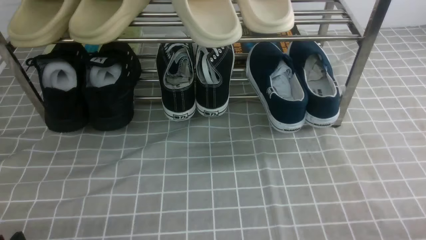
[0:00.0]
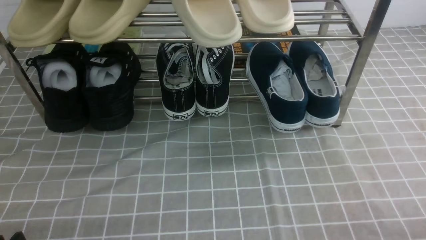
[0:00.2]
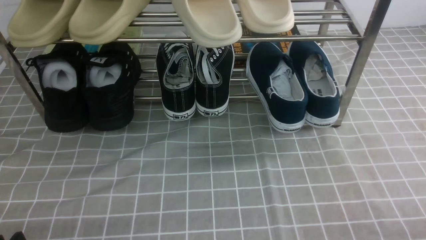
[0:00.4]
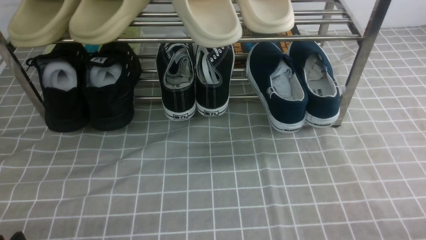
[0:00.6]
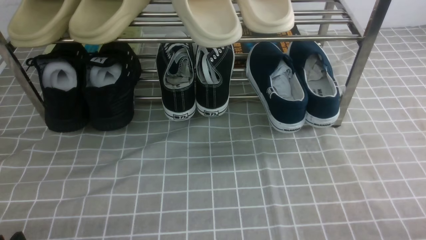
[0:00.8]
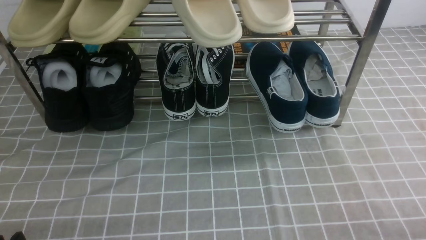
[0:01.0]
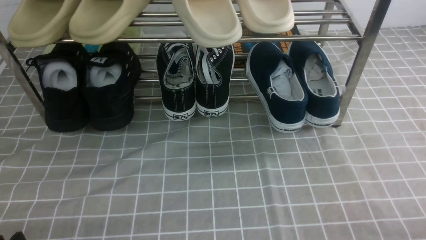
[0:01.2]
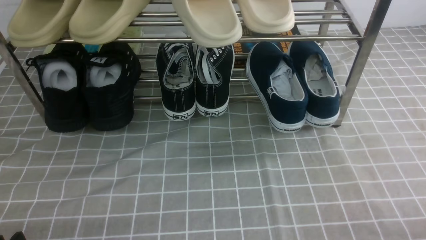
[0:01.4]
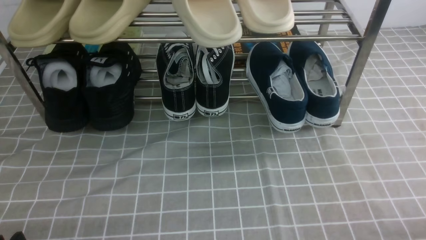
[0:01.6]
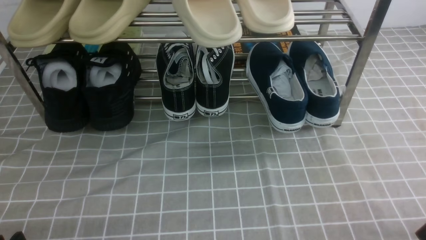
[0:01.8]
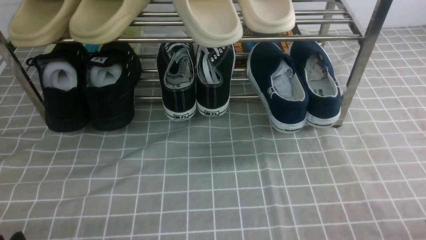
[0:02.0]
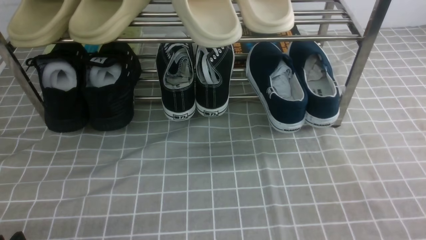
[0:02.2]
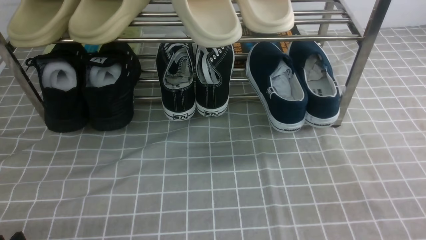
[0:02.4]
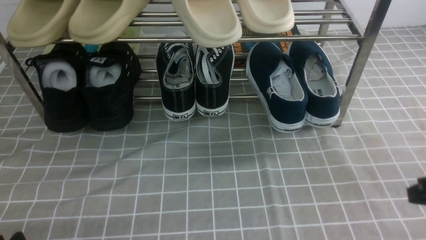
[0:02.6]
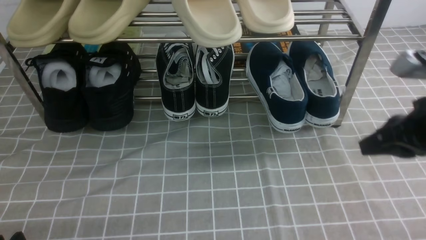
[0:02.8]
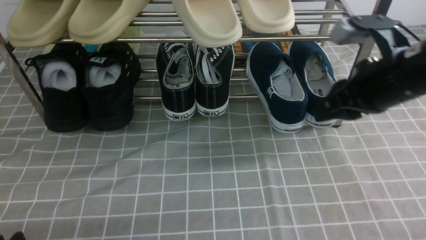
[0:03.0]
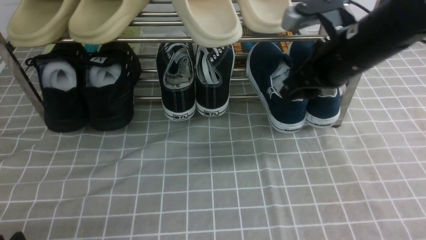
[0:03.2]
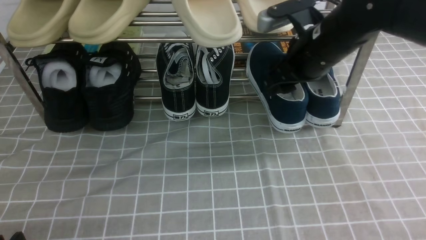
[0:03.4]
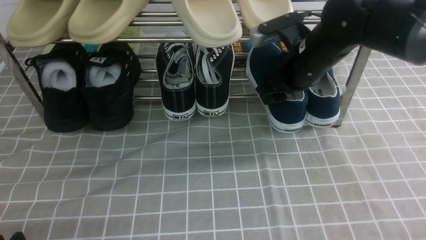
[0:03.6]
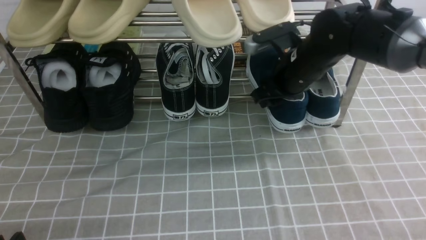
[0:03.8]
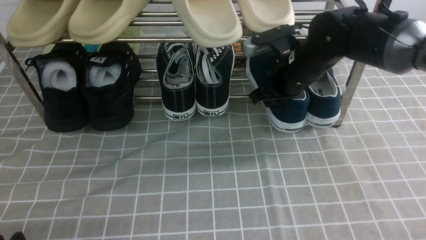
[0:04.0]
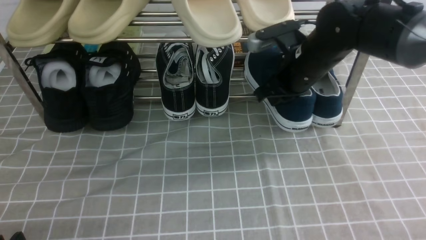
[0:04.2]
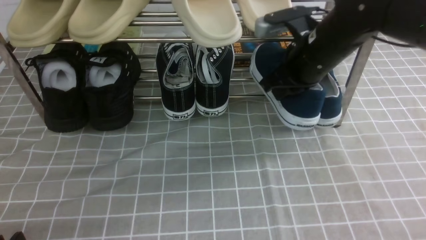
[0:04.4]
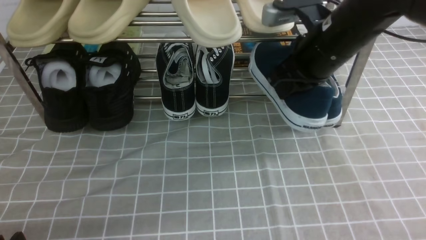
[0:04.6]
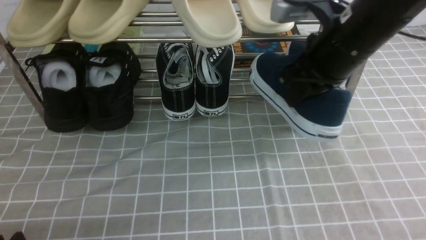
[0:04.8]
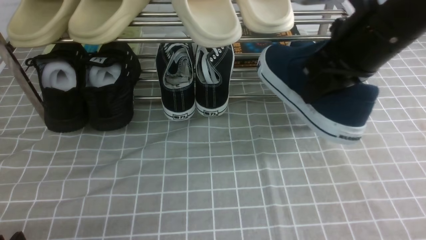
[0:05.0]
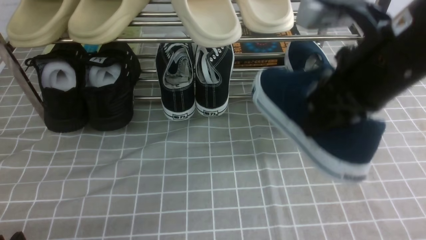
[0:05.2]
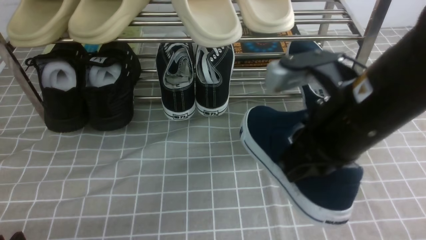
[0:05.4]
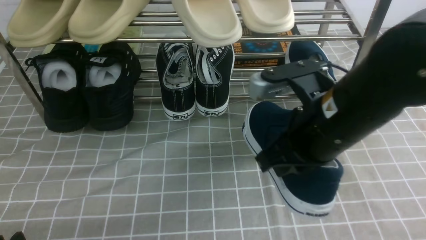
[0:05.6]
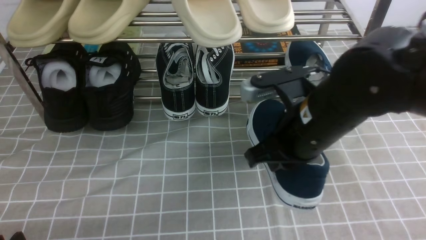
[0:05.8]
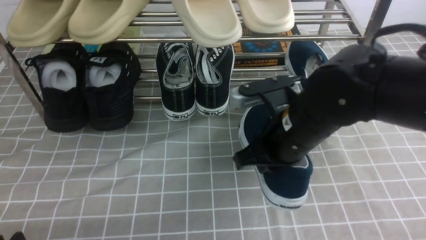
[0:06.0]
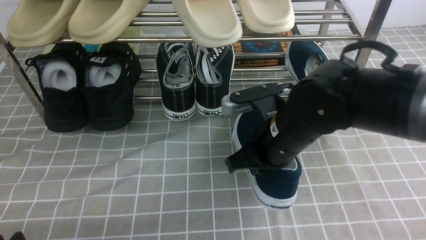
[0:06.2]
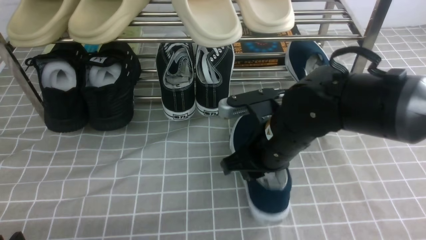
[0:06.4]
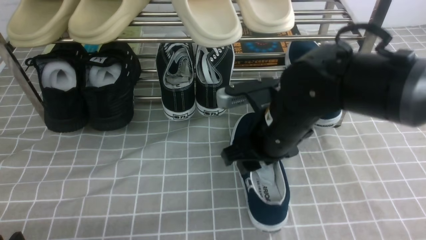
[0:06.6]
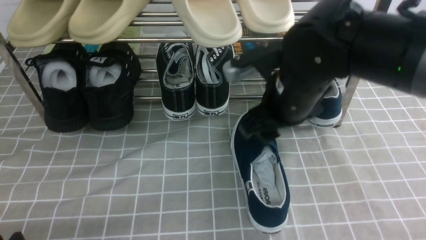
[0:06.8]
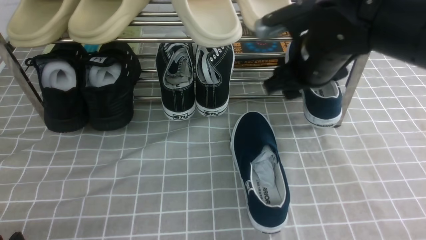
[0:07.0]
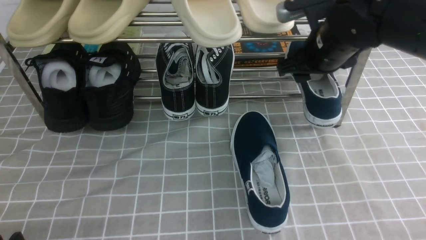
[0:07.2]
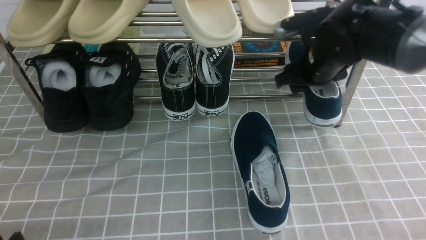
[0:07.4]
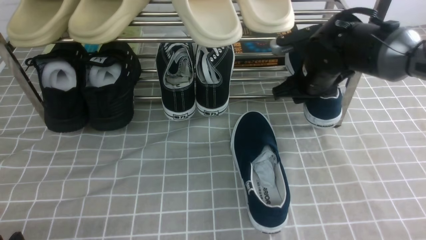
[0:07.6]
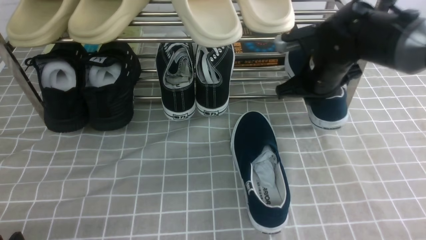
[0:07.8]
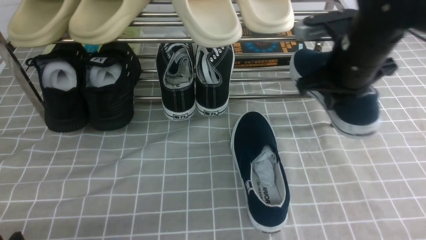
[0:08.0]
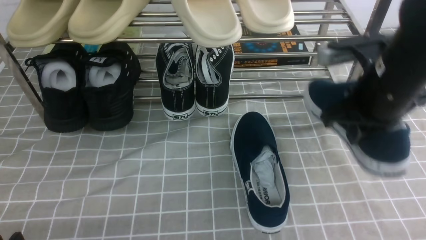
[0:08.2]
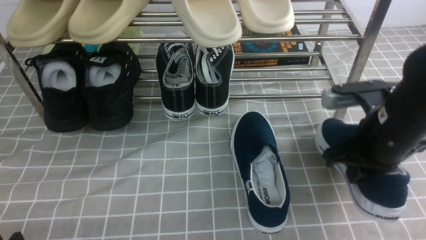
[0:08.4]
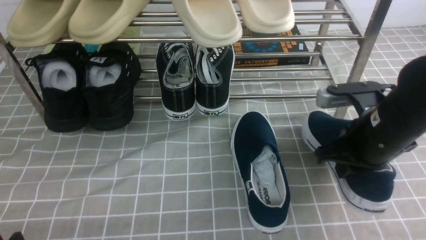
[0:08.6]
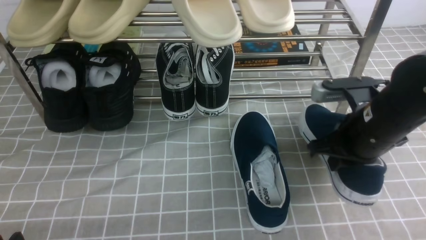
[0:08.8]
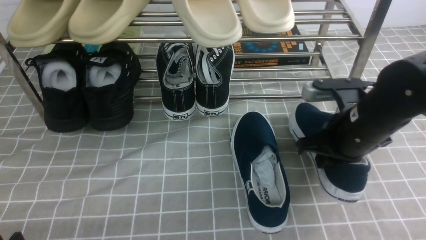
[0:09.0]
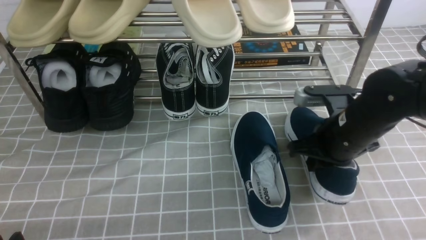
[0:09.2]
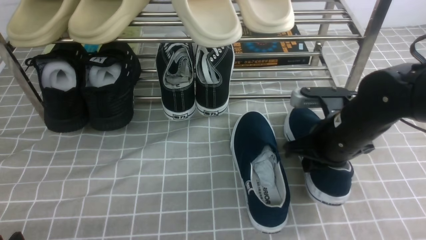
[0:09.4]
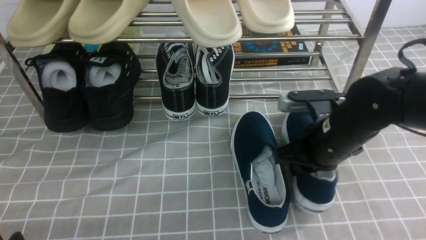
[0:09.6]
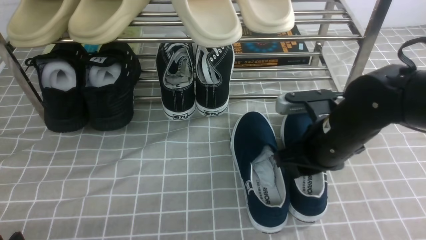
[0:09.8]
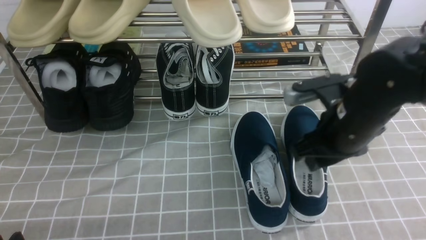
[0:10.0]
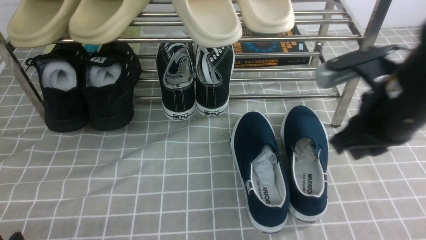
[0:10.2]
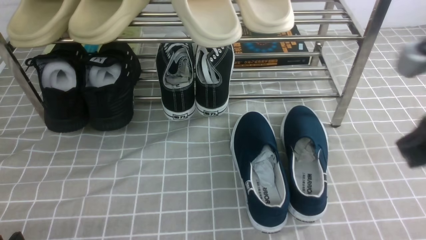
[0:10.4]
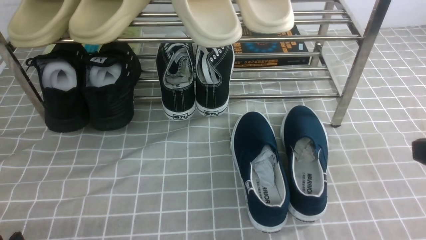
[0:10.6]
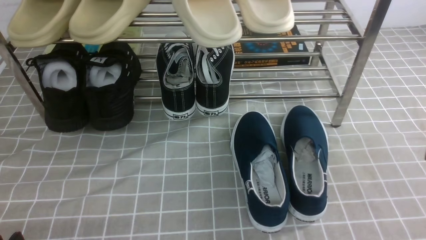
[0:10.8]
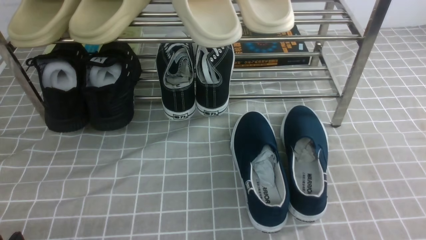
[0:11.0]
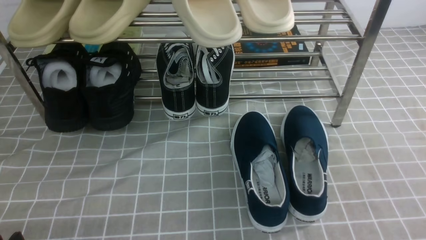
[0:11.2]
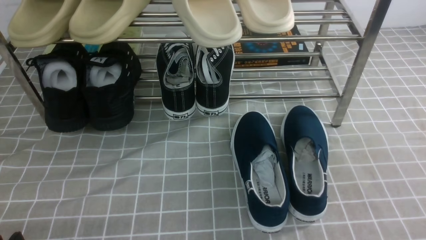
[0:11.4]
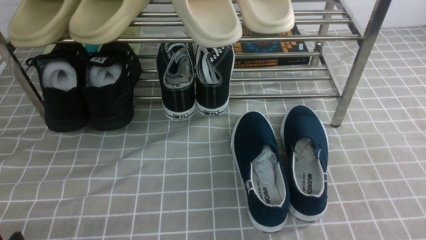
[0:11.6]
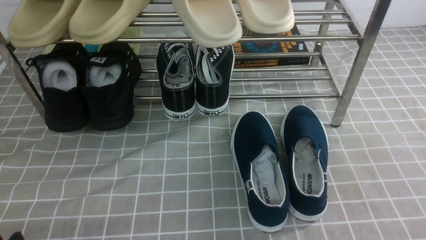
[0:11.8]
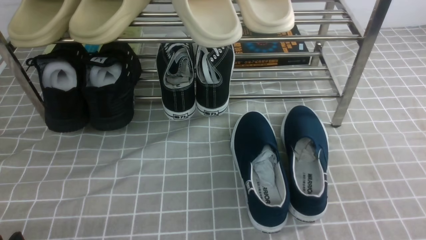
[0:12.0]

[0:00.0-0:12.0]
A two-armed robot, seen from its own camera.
Step, 0.0 to 4.0 s: use the right arm to clamp a shoe on the right side of the shoe rack.
Step, 4.2 to 6.6 s: use the right arm to take out the clamped shoe from the shoe rack and put it down.
Step, 6.8 to 7.8 s: use the right arm to clamp a shoe on the right side of the shoe rack.
Step, 8.0 to 10.2 s: use the right arm to take out the clamped shoe from the shoe rack and put it down.
1.6 to 3.0 s: The right gripper heads forward, upward and to the left, covering some 30 cm, and closes, then reopens.
3.0 to 4.4 s: The right gripper is displaced forward and to the left by roughly 10 cm, and closes up.
4.4 to 6.0 s: The right gripper is displaced backward and to the left by about 10 cm.
6.0 to 7.6 s: The right gripper goes roughly 15 cm forward and to the right, and opens its fingers.
7.6 to 9.0 s: The right gripper shifts some 10 cm backward, and closes.
9.0 to 10.4 s: The right gripper travels backward and upward by some 15 cm, and opens, then closes once more.
10.4 to 12.0 s: The right gripper moves backward, to the right and downward, approximately 15 cm.

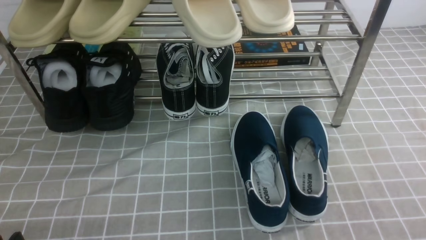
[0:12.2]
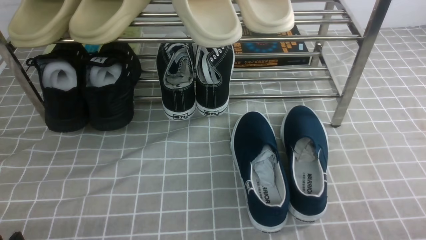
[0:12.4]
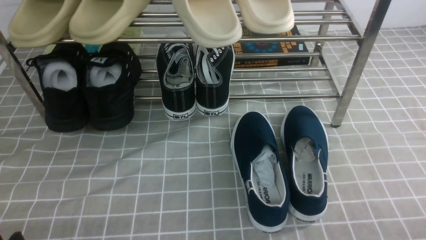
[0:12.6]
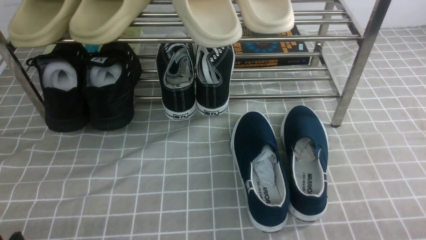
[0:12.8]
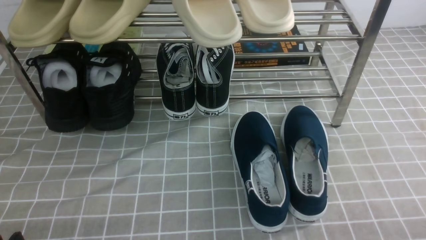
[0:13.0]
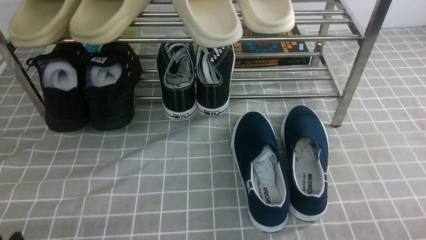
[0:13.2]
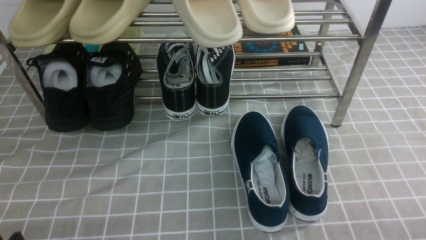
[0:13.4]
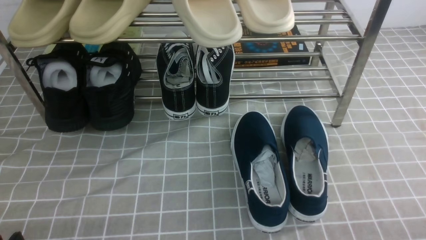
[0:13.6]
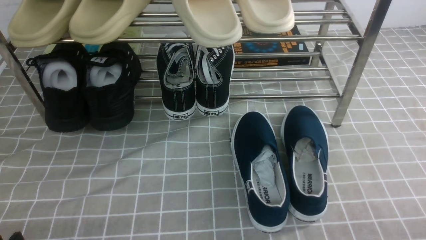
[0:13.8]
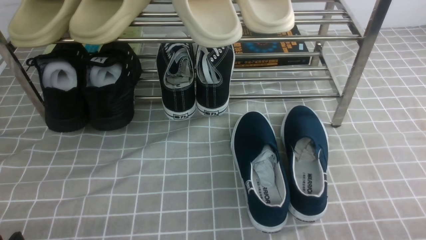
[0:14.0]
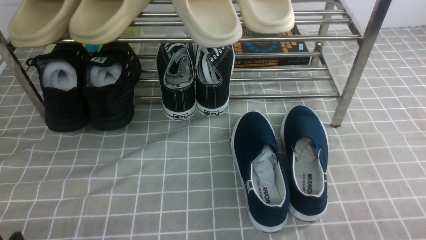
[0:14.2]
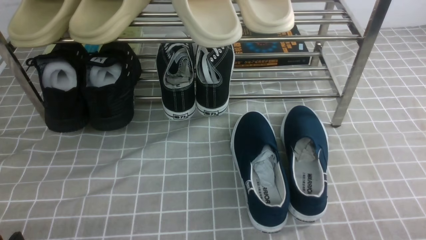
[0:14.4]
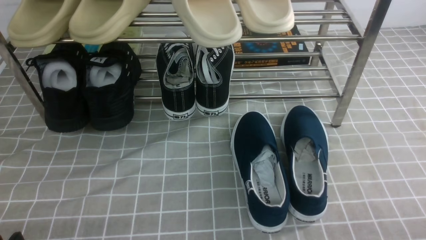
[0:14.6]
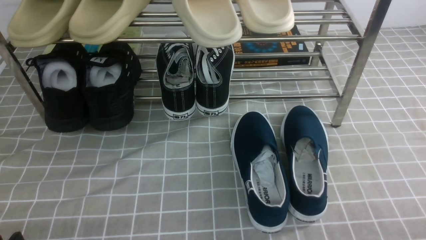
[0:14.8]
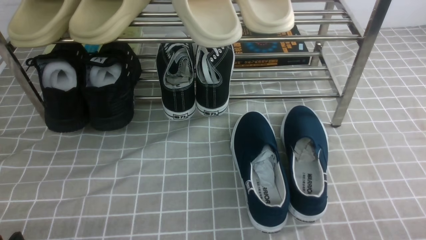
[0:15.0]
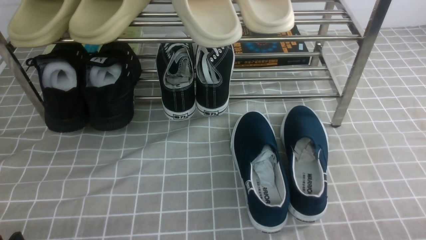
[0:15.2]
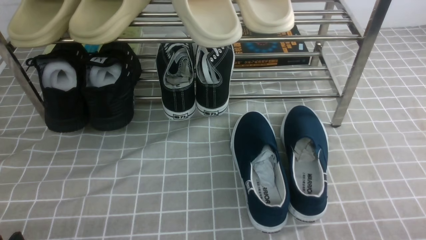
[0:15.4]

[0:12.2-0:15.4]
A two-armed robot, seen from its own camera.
13.8 to 15.4 s: The two grippers keep their place.

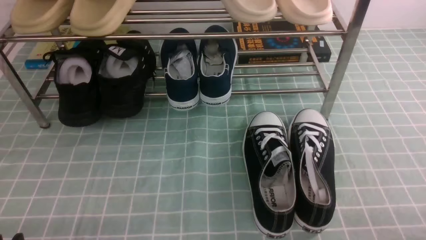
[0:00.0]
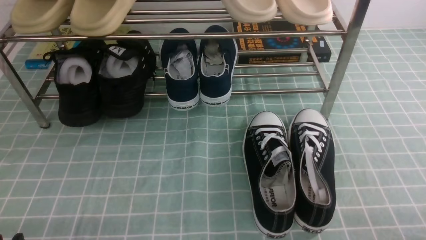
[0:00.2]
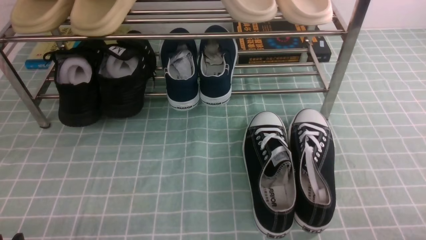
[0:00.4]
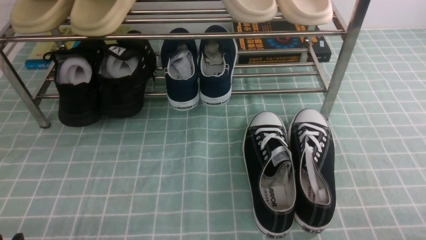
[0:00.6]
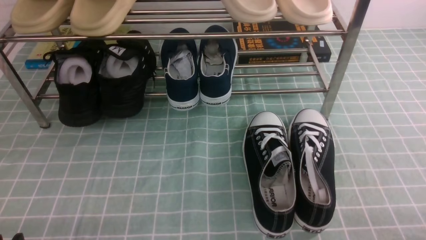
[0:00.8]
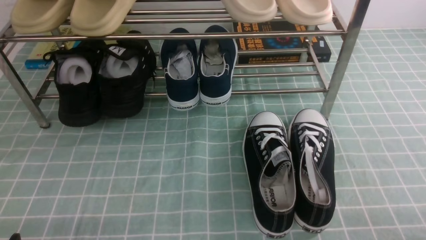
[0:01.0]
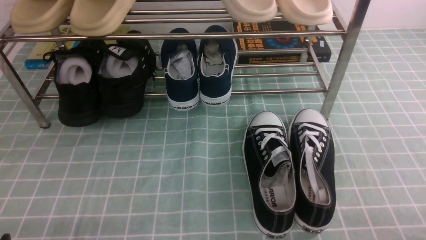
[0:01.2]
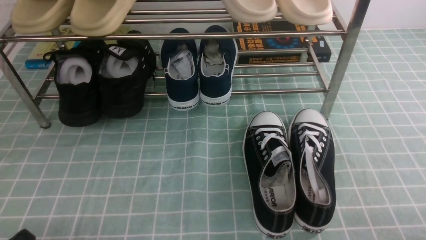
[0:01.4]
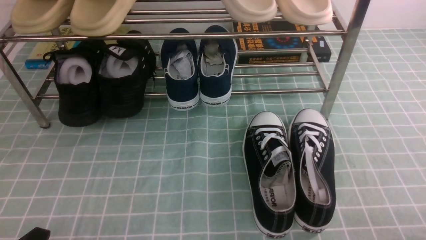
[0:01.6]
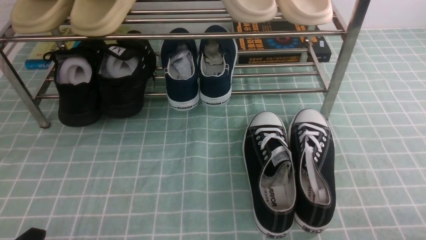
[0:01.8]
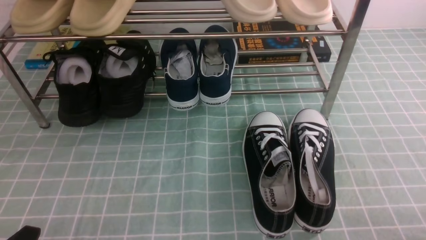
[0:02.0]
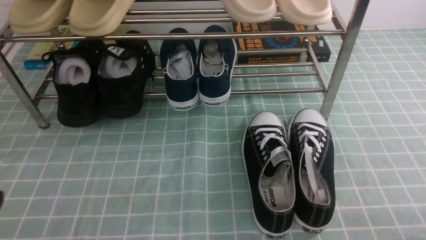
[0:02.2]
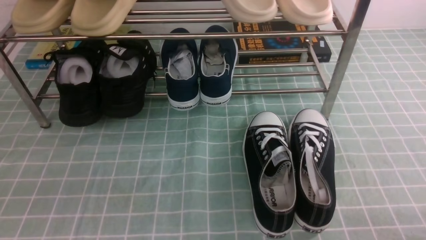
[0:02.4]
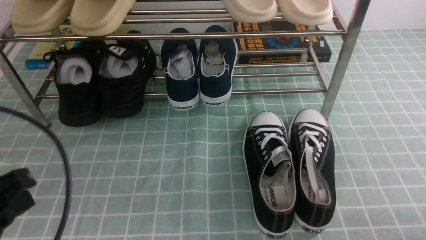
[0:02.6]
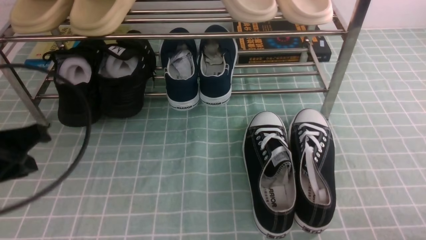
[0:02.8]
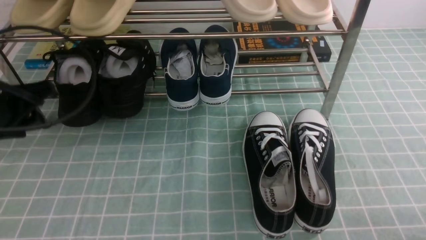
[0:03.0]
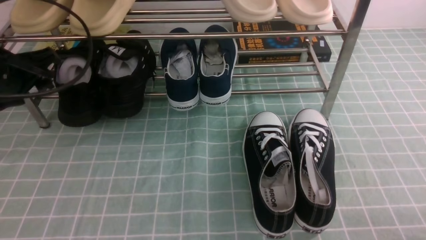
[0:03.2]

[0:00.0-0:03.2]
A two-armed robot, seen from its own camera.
1.6 to 3.2 s: The left gripper goes approximately 30 cm forward and upward, and opens up.
